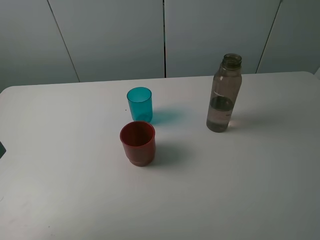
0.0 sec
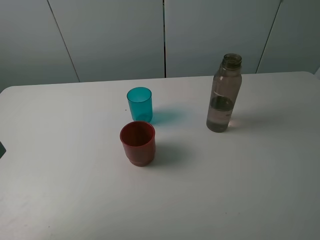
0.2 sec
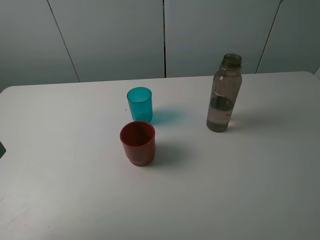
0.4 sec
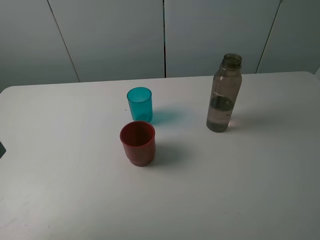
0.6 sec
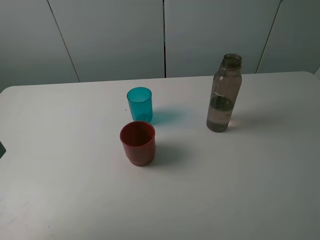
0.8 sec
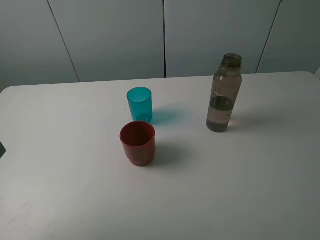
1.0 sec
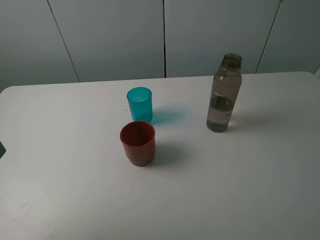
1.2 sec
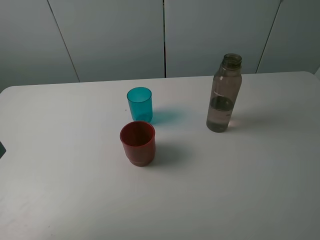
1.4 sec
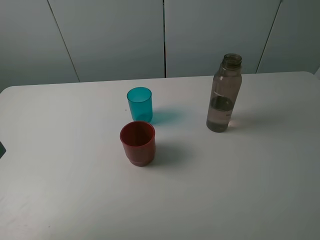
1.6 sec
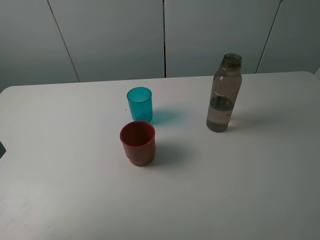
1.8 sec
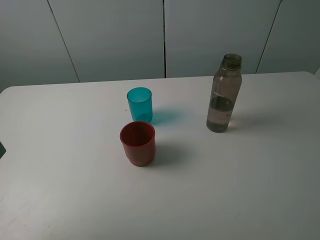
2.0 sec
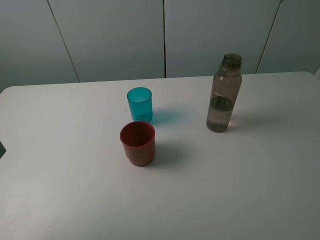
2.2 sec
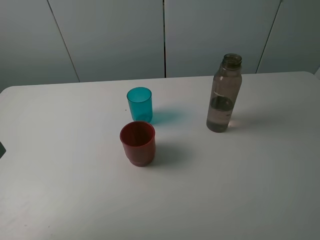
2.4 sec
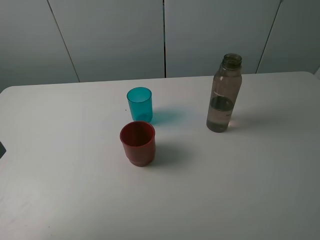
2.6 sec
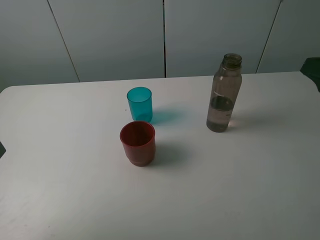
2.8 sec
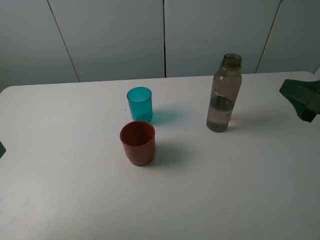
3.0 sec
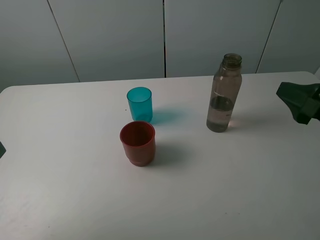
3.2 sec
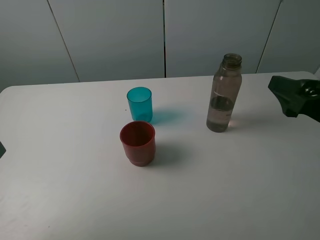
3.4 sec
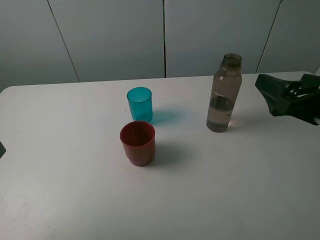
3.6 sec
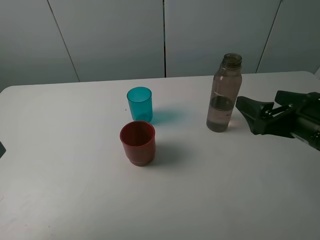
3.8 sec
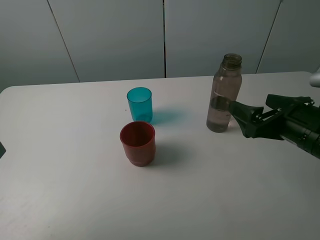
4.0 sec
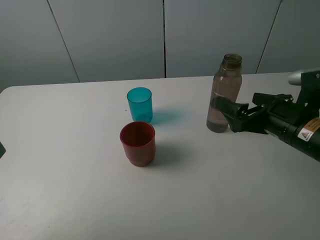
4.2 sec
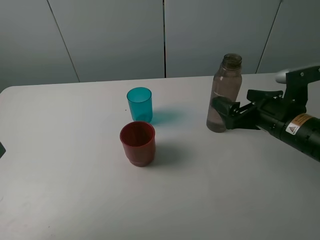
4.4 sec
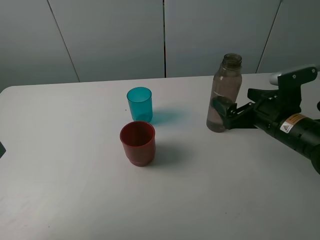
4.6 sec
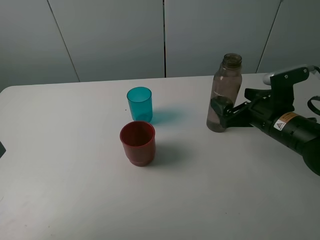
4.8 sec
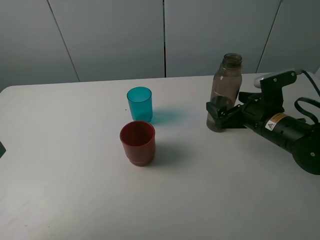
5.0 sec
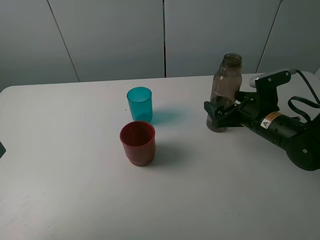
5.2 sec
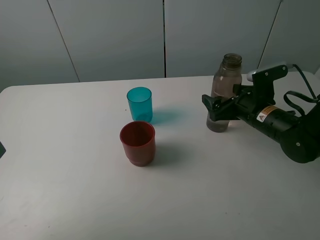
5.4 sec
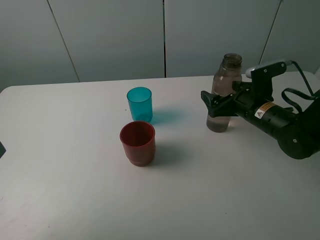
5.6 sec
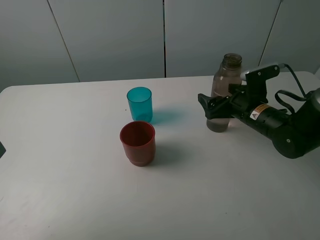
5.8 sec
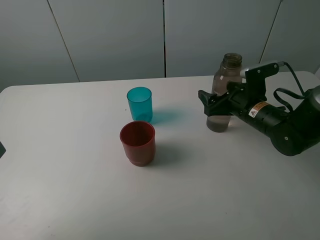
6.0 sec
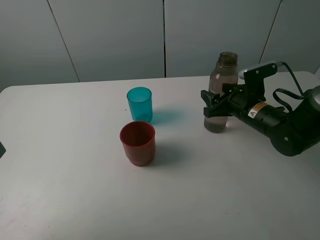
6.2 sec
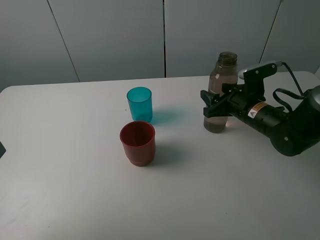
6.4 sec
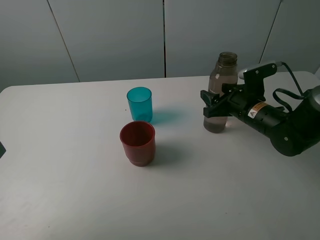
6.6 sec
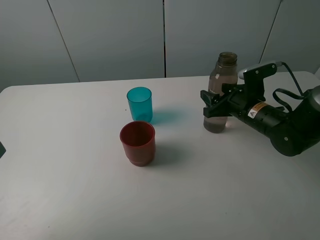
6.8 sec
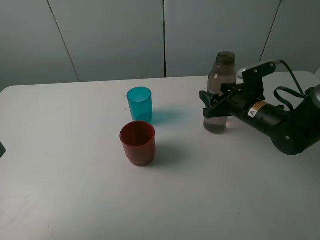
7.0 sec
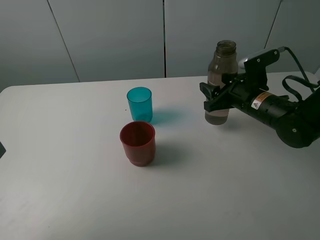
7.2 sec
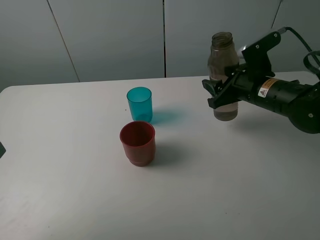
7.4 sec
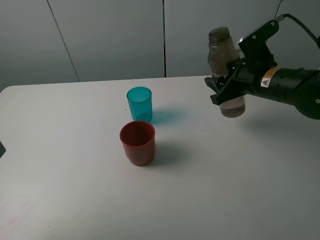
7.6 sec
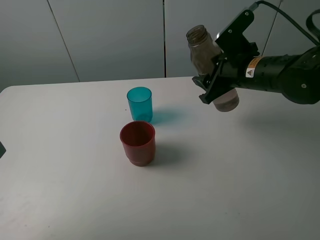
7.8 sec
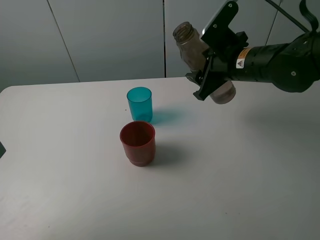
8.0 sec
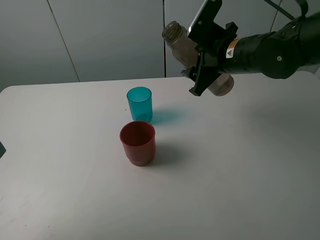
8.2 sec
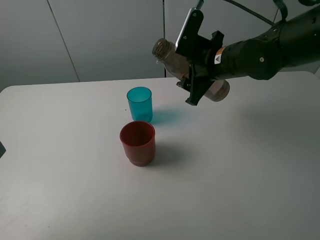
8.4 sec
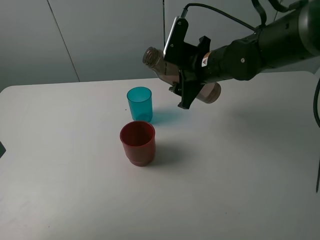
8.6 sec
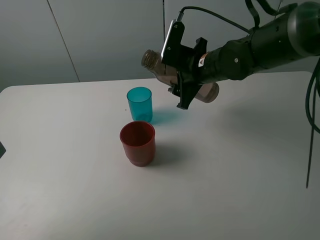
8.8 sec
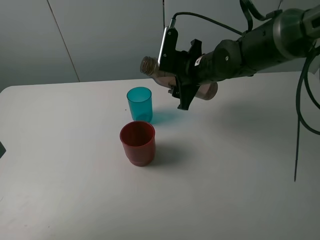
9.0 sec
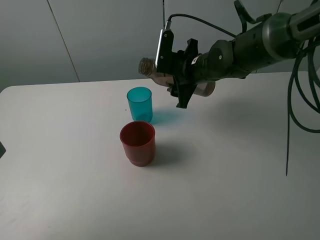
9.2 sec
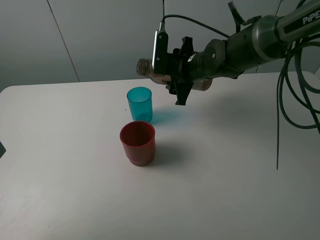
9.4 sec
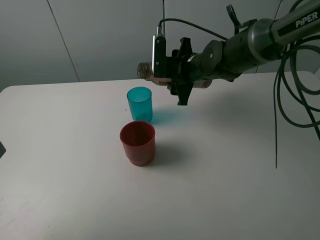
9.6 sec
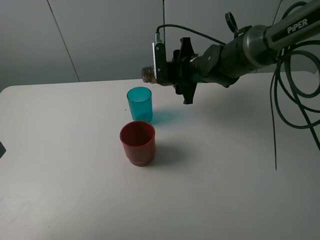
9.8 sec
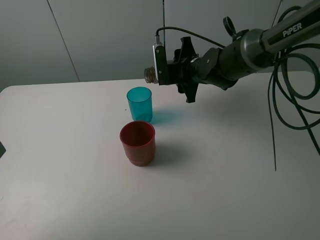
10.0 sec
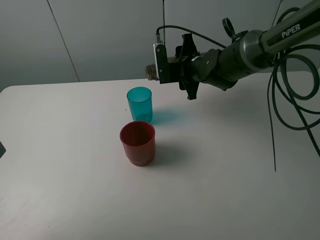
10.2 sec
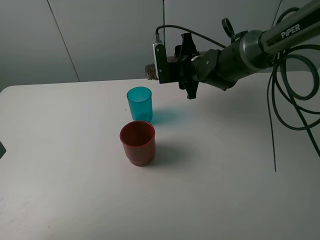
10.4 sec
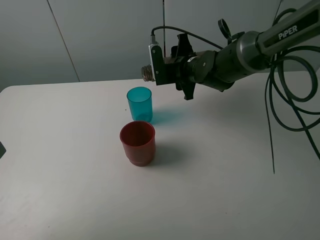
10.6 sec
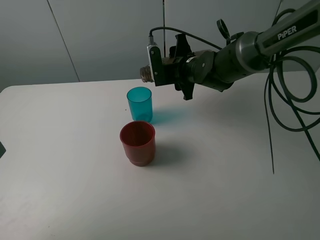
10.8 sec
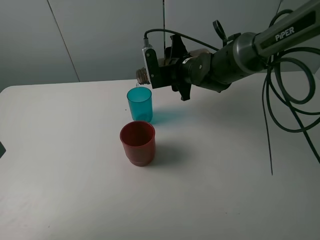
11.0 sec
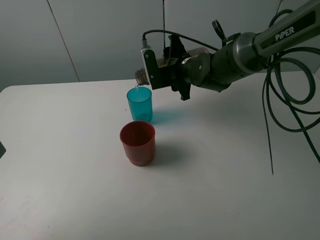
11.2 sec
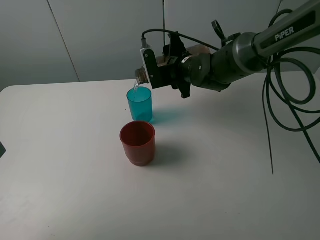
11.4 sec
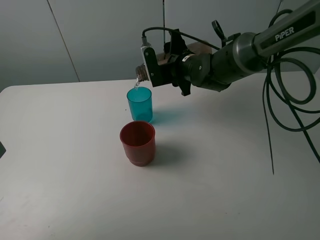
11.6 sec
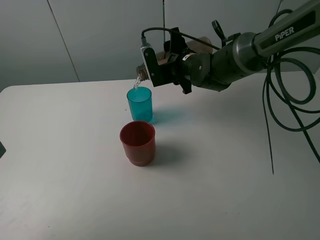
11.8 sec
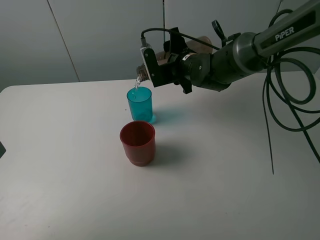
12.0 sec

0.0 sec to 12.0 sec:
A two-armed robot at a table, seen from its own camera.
Task of the whole recording: pick up the bottle and pour water into the cup, then pick up the cup containing water and pour it into another cup.
Step, 0.0 sec to 6.0 sec: Grasp the brown bottle with the right gripper.
0.0 sec to 1.6 sec: Neither gripper changes place.
1.6 sec to 3.0 sec: The right gripper travels forward and downward by some 15 cm.
3.0 sec to 4.4 sec: The right gripper travels forward and downward by some 15 cm.
4.4 sec to 6.0 sec: The right gripper shifts about 10 cm forward, and closes its fingers.
6.0 sec to 7.6 sec: The right gripper heads upward, covering about 10 cm.
7.6 sec to 9.0 sec: The right gripper travels to the left and forward by approximately 10 cm.
10.4 sec to 12.0 sec: The grippers stay close to where they were, moving slightly.

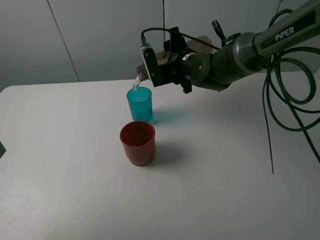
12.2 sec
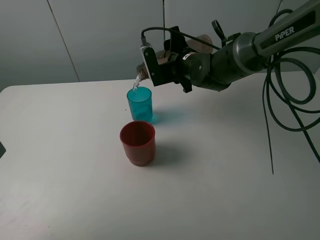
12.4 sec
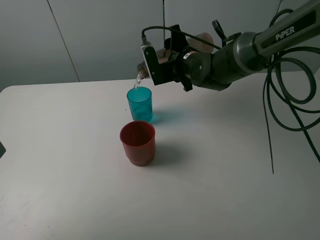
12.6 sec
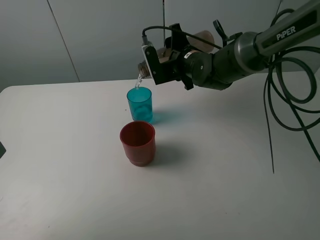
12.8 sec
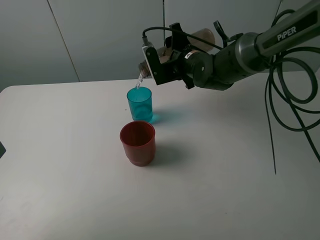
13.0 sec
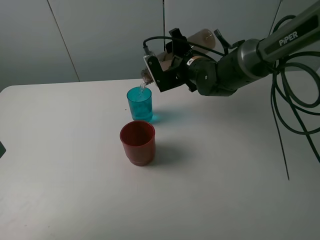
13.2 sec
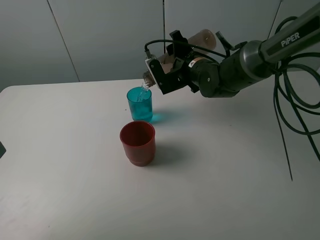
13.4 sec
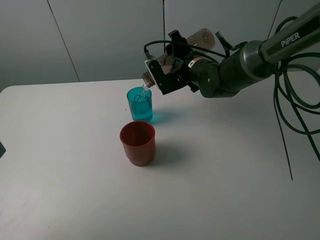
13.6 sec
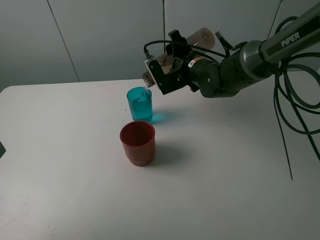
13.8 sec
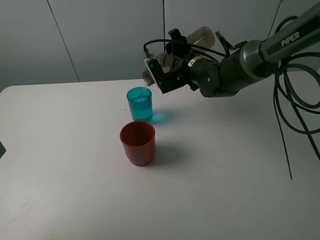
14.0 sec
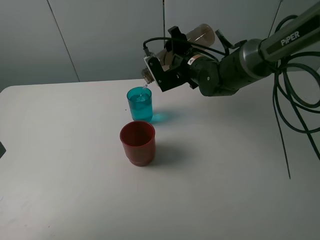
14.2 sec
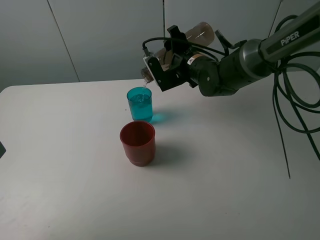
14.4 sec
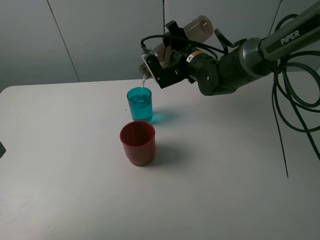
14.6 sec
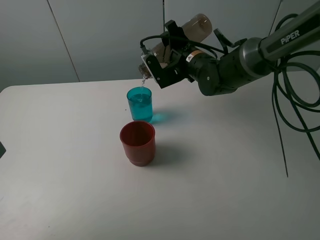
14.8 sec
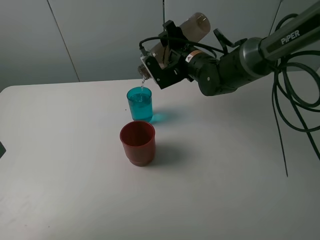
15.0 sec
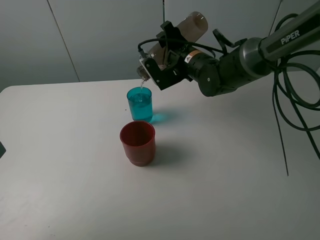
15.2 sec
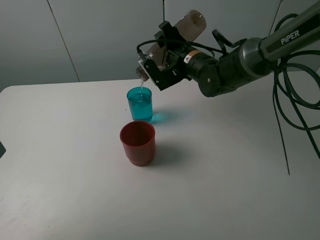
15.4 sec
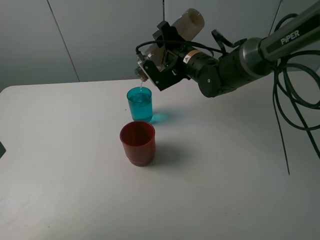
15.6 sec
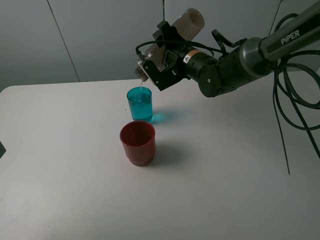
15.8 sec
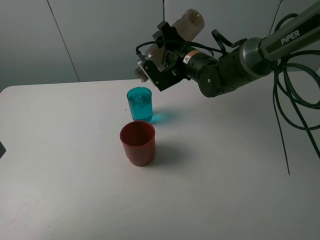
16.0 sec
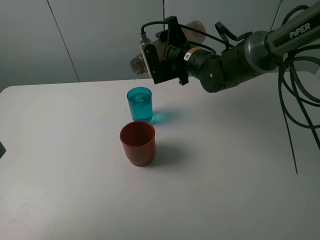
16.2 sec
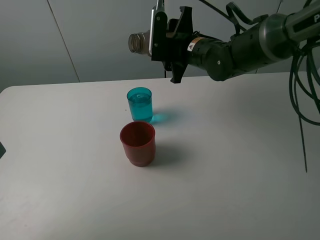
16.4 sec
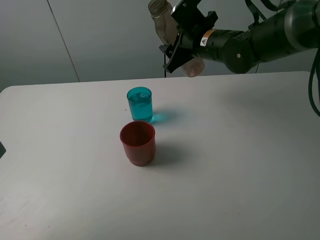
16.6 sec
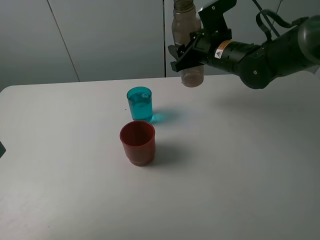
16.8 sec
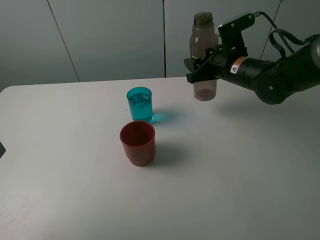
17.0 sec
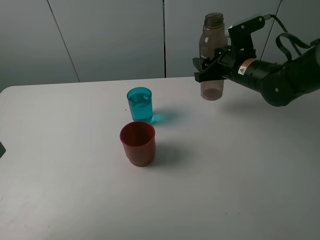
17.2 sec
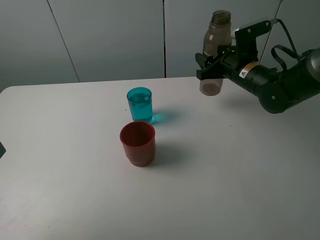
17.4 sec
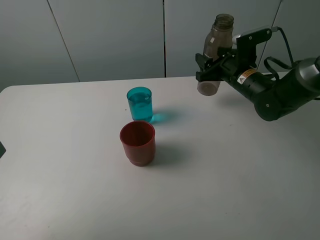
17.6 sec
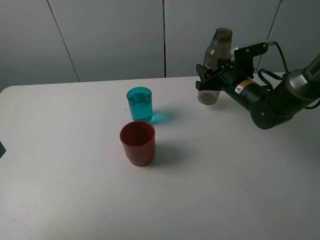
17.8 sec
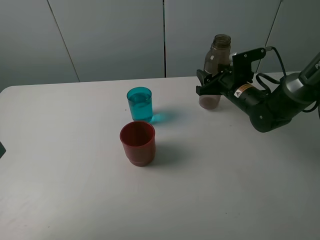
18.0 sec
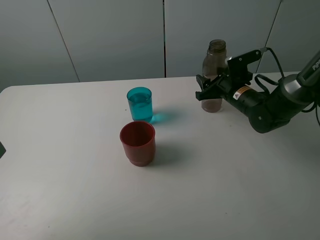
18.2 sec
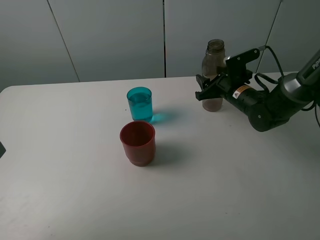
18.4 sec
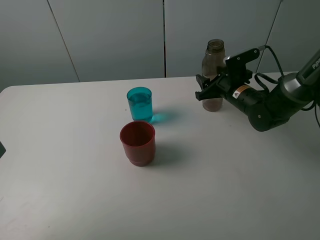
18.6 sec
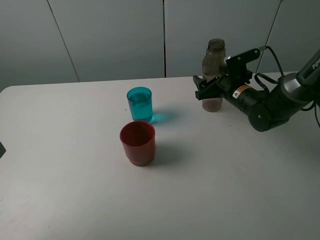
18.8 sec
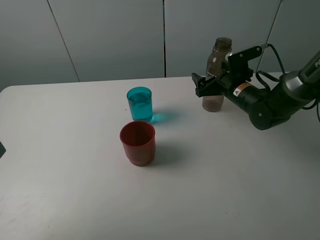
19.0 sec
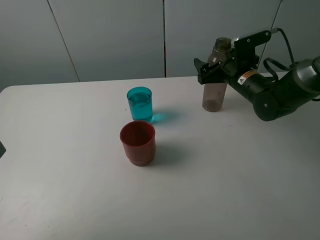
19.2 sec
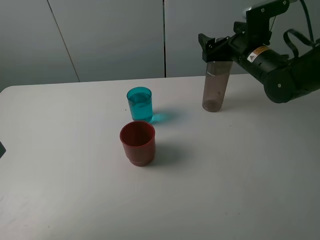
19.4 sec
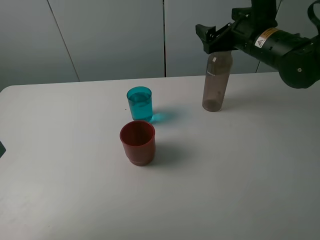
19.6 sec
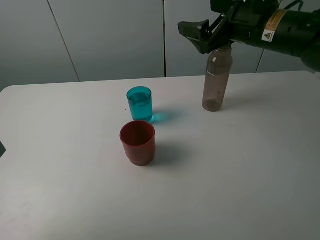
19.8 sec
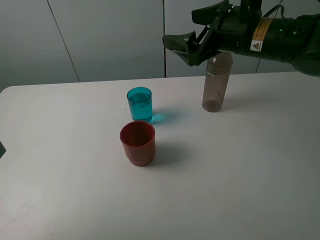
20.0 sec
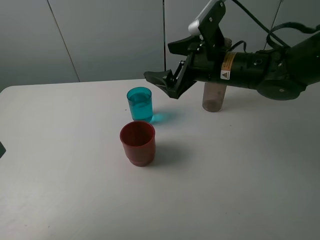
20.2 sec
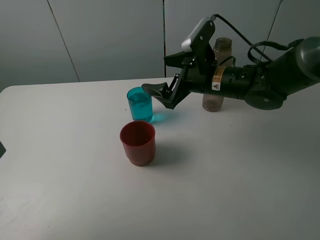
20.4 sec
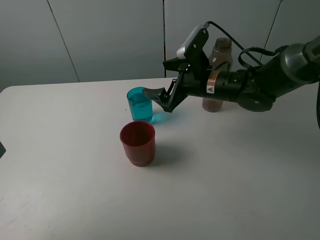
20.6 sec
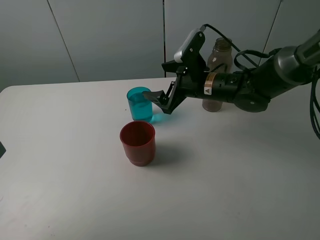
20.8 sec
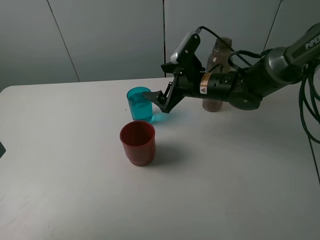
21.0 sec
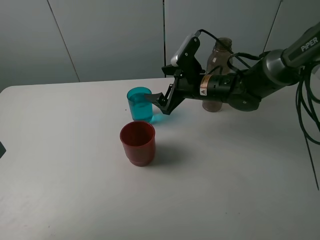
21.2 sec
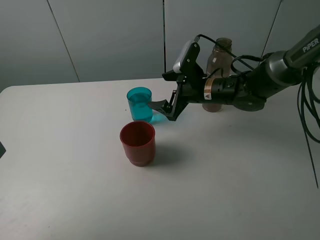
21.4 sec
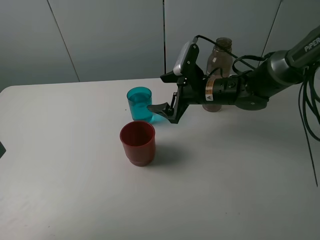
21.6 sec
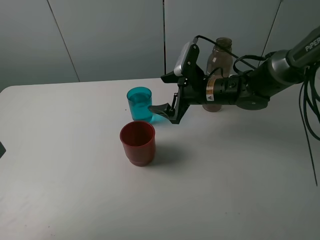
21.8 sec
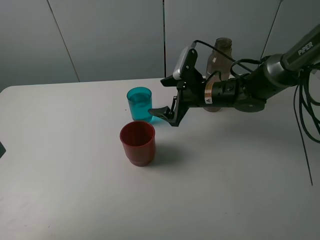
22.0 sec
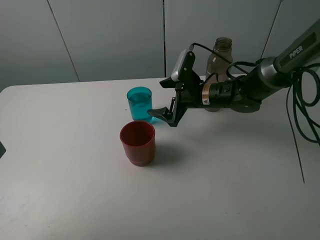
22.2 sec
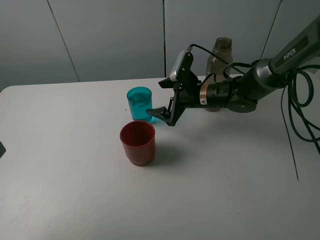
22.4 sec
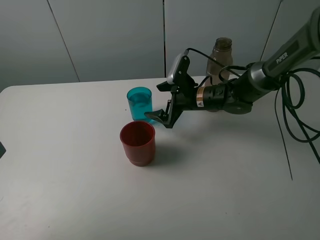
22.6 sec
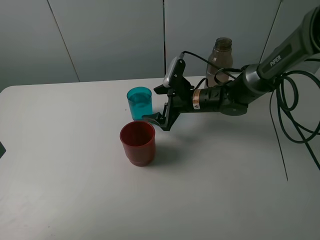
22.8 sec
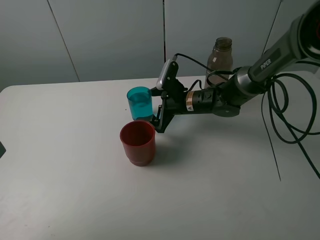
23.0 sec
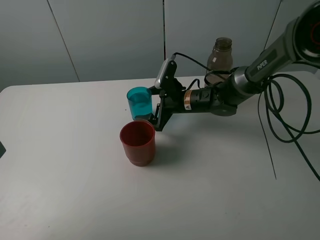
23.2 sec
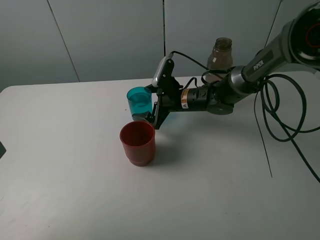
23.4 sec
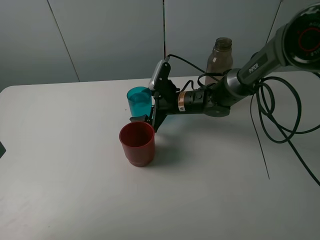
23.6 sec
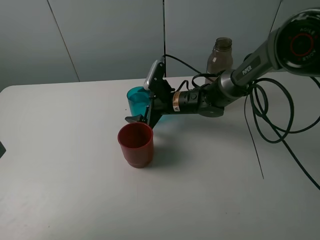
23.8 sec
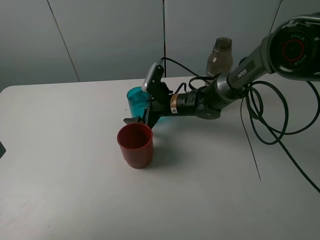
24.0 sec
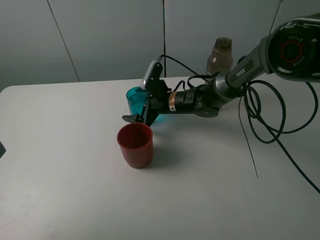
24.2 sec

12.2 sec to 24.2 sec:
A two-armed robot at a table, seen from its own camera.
Task of the whole recording: pick up the bottle and pour water into the cup, then pick up the cup containing water and pour it into another cup.
Step, 12.2 sec to 16.2 sec: Pour water from brown bottle to blue cup with the right gripper.
Step, 16.4 sec to 18.8 sec: Place the brown bottle with the right gripper.
12.2 sec to 13.8 sec: The grippers move only a little.
13.8 sec to 15.2 sec: There are only small adjustments of the grippers.
15.2 sec to 16.6 sec: The right gripper shifts by approximately 5 cm.
16.6 sec to 18.2 sec: The right gripper travels downward and to the right by about 15 cm.
18.2 sec to 19.8 sec: The right gripper is displaced upward by some 20 cm, and opens up.
19.8 sec to 21.2 sec: The right gripper travels downward and to the left by approximately 15 cm.
21.2 sec to 22.6 sec: The grippers move only a little.
22.6 sec to 24.2 sec: The right gripper moves to the left, some 5 cm.
